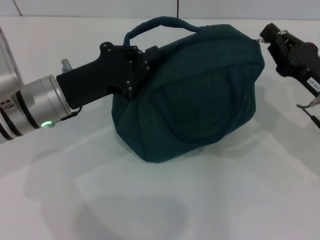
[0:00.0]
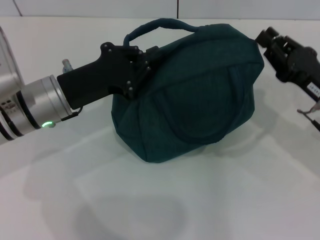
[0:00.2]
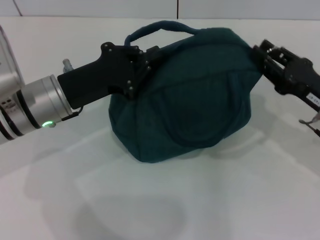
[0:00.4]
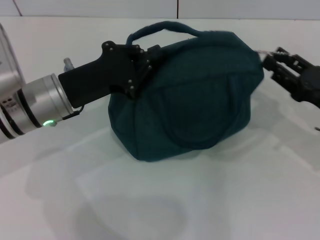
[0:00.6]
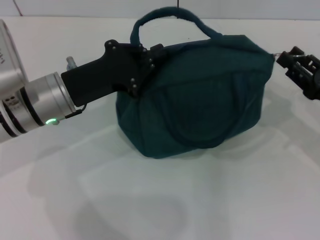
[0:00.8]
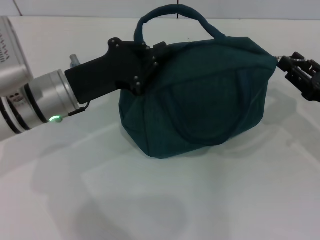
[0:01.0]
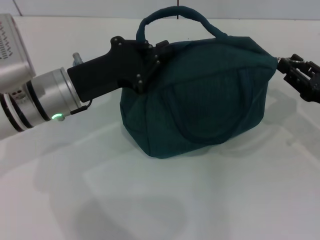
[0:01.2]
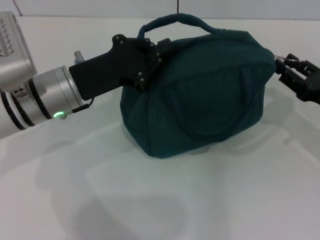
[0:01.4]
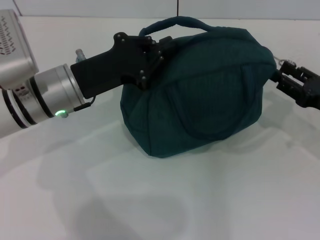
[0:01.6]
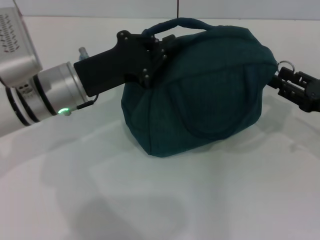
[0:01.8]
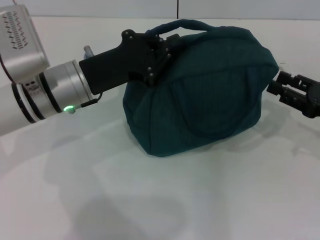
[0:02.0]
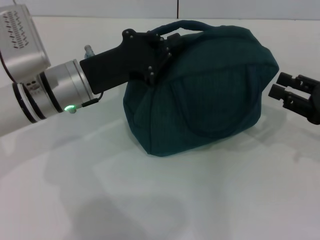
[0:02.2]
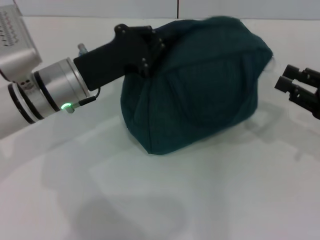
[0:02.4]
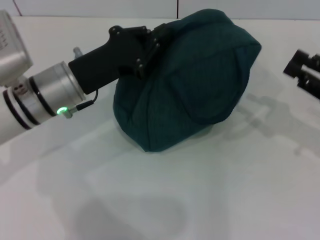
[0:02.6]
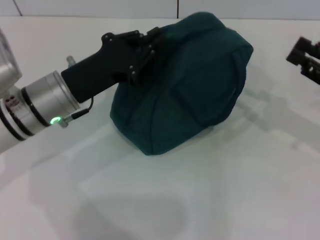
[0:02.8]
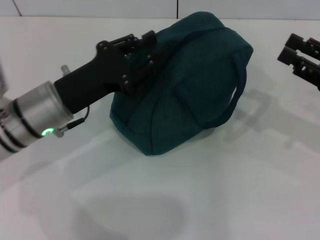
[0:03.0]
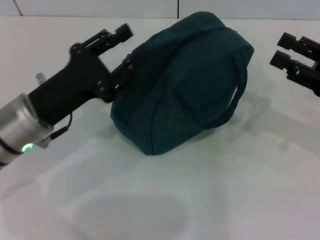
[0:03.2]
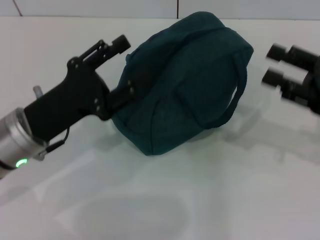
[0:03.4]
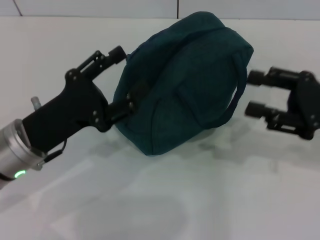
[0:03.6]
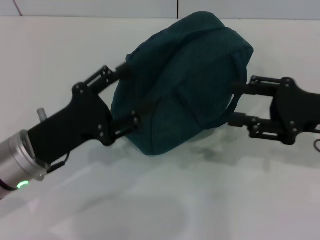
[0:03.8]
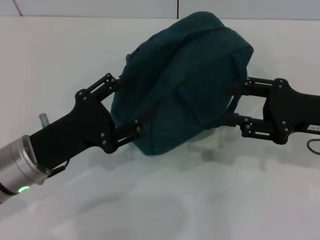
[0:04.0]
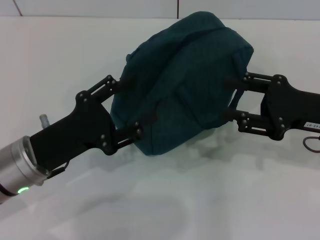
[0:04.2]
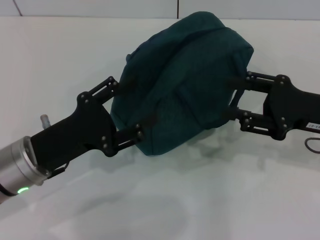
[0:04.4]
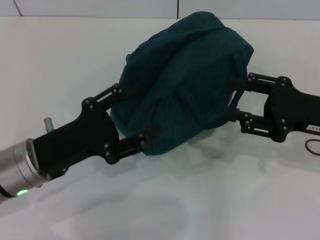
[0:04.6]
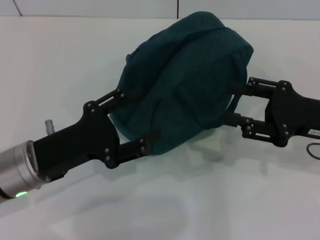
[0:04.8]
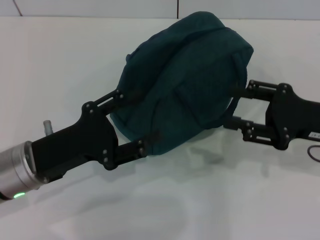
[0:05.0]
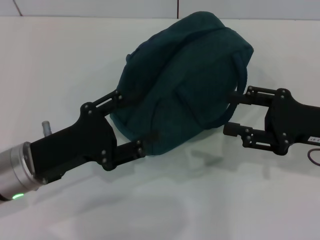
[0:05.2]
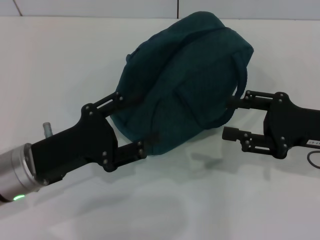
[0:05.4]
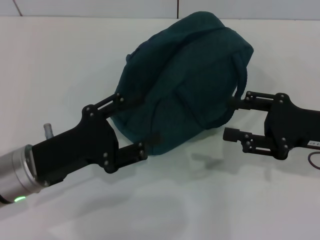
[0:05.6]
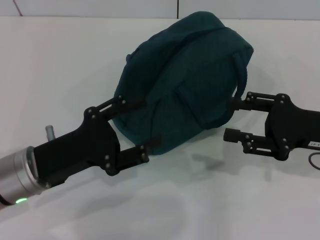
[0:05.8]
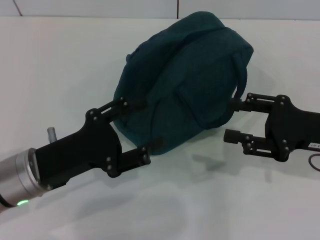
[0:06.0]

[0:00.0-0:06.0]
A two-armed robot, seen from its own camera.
Step, 0:00.0 to 0:02.2: Zip up the lunch bag with your right hand.
Step, 0:02.4 to 0:03.0: Hold the lunch bag with your left hand.
0:00.0 to 0:01.6: The right gripper travels to the right by about 5 cm, and opens its fingers.
0:01.6 to 0:03.0: The right gripper heads upward, covering about 5 cm.
0:03.0 to 0:04.4: The right gripper travels to the left by approximately 5 cm; the left gripper heads backward, covering some 5 cm, and opens its fingers.
0:04.4 to 0:06.0: The grippers stay close to where they were, moving slightly.

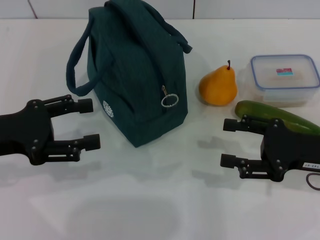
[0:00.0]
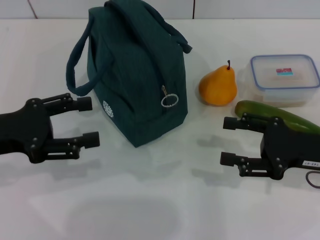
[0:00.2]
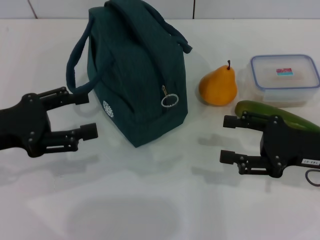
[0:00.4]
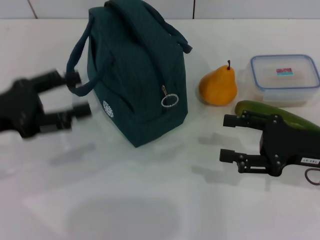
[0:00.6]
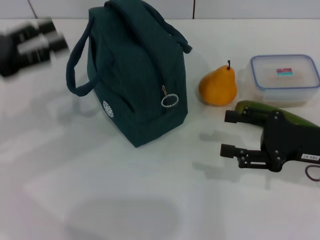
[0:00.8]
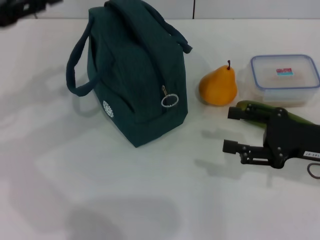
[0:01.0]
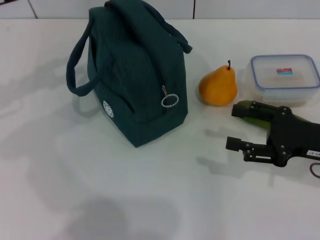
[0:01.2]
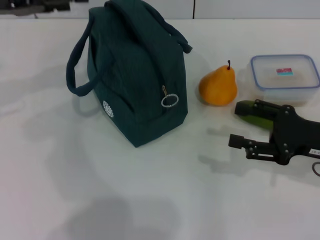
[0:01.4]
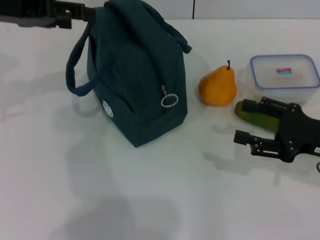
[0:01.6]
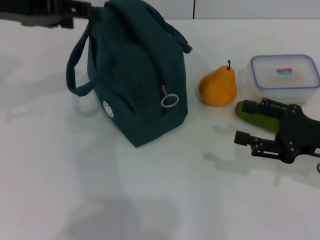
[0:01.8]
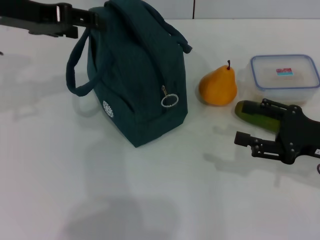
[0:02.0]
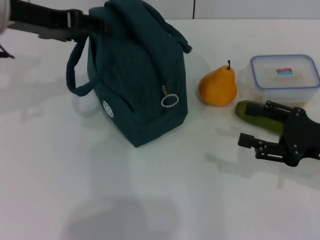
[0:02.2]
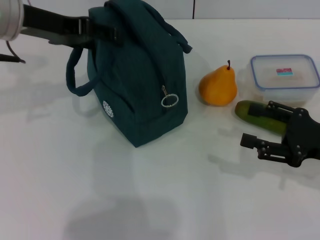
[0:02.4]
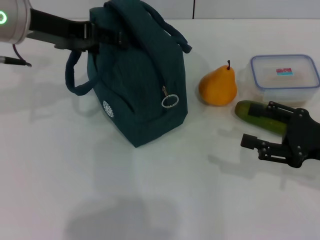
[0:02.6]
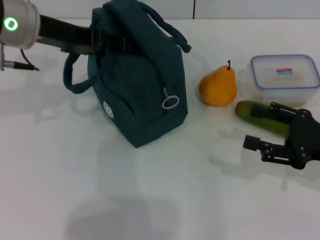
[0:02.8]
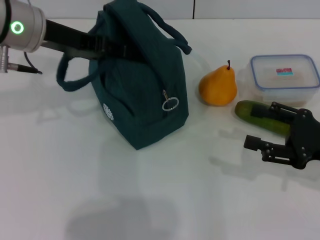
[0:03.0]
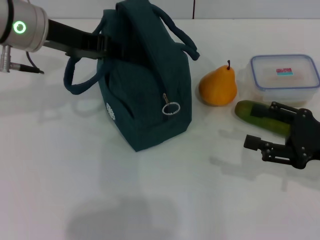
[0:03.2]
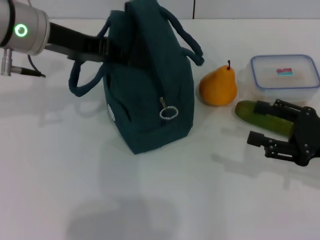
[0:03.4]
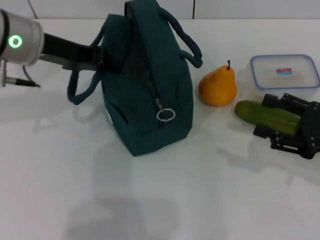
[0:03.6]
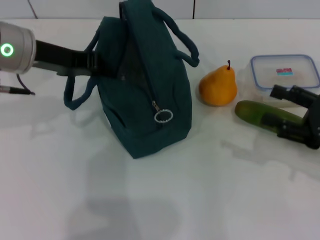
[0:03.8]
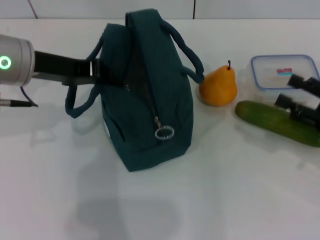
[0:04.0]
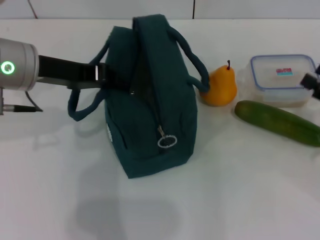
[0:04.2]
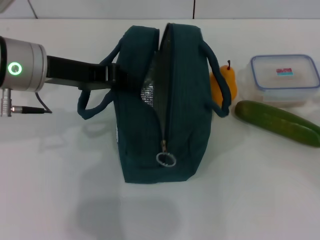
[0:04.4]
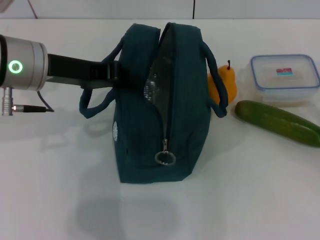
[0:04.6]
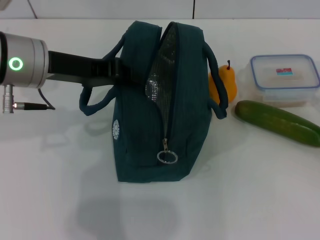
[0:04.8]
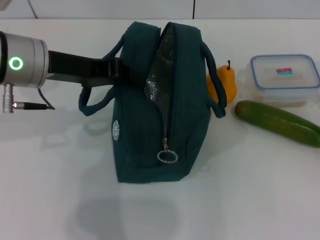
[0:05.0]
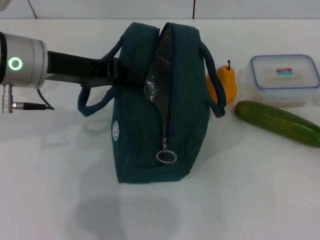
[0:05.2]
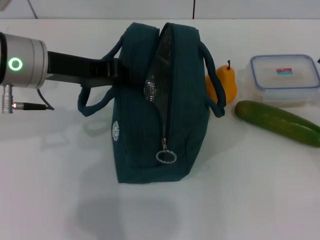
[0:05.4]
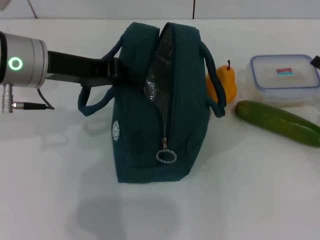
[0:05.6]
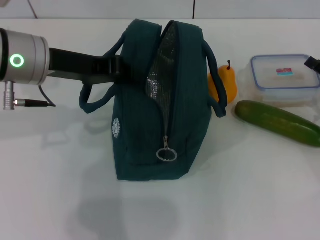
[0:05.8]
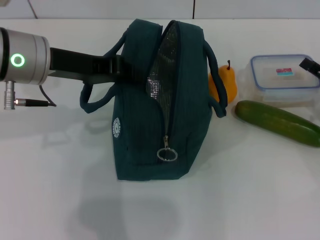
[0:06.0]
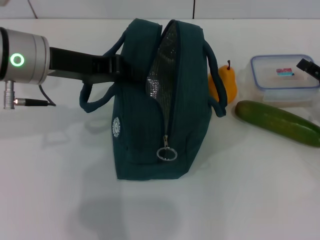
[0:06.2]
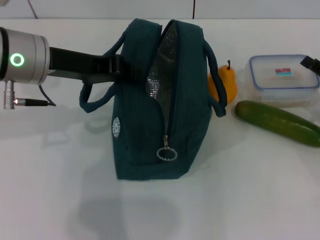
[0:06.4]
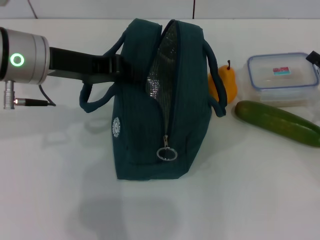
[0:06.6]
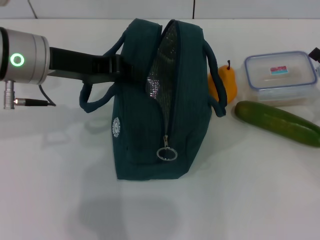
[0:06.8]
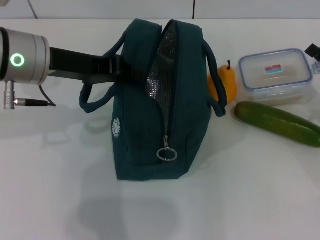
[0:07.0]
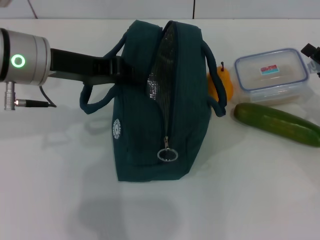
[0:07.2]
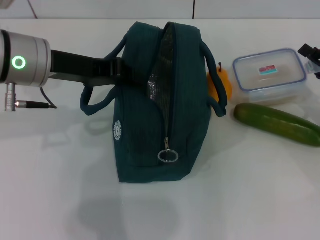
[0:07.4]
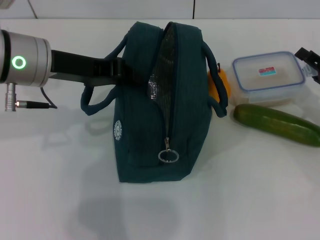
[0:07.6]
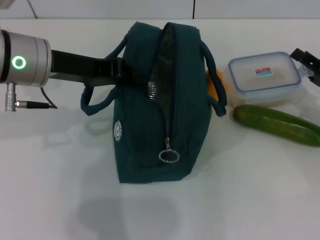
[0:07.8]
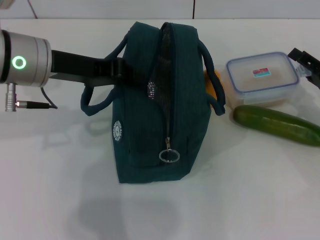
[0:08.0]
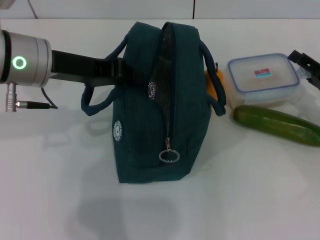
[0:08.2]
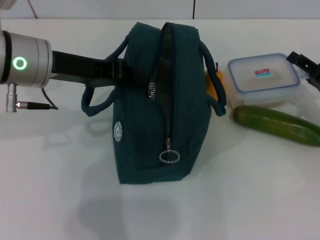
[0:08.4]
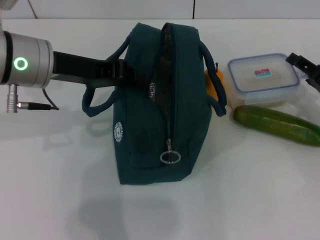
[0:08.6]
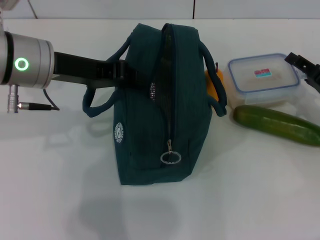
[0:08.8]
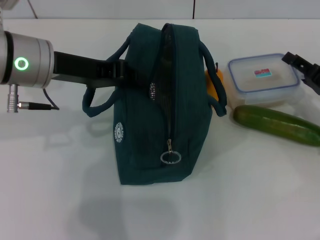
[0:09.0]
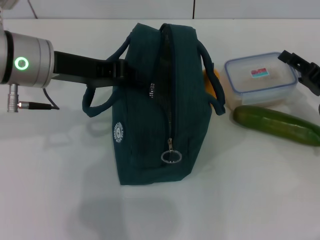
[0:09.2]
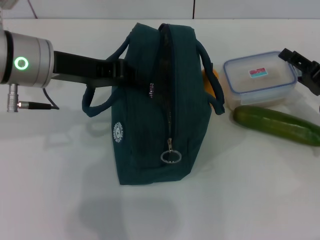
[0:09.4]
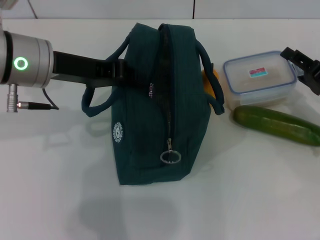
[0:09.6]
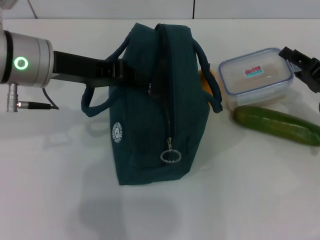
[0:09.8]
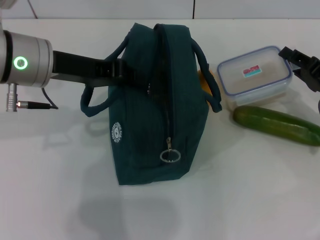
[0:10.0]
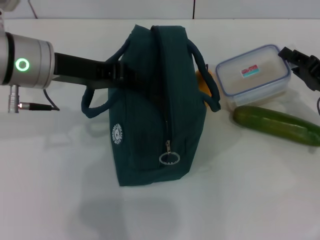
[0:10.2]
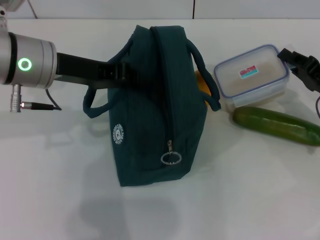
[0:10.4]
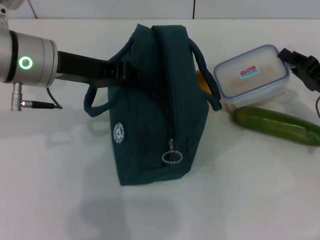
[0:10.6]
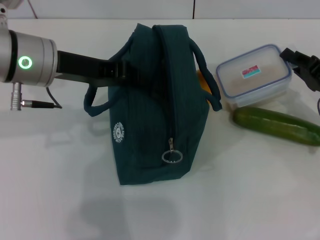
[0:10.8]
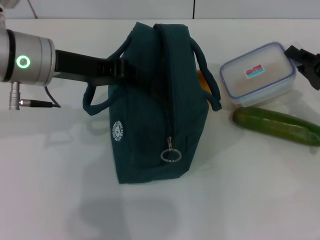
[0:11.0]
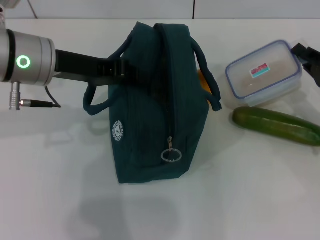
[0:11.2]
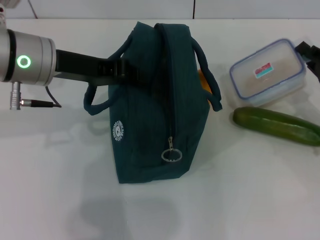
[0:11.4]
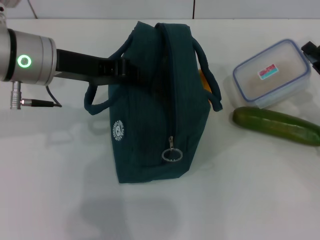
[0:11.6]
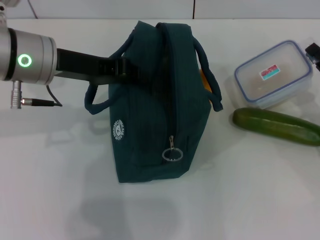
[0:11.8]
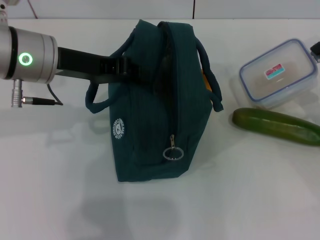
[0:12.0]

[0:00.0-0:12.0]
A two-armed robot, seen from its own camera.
Step, 0:00.0 to 0:03.6: Hold the lunch bag with your left hand.
Step, 0:03.8 to 0:11.0: Pick up the lunch box with your right hand.
0:00.0 to 0:01.6: The left gripper moves forward and upward, some 15 cm.
0:01.6 to 0:03.0: The left gripper heads to the right, covering some 5 cm.
0:03.0 to 0:04.4: The right gripper goes about 10 cm to the right. The left gripper heads backward, covering about 5 cm, and closes up.
0:04.4 to 0:06.0: The right gripper heads forward, covering roughly 5 cm.
0:06.0 to 0:09.0: The grippers make only small movements.
0:09.0 to 0:10.4: The right gripper closes its fingers.
0:10.4 to 0:12.0: The grippers move only a little.

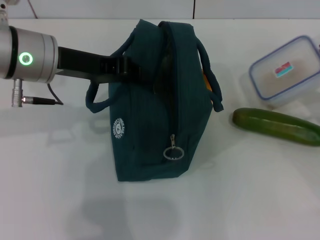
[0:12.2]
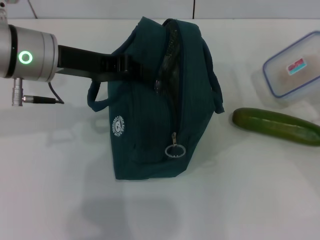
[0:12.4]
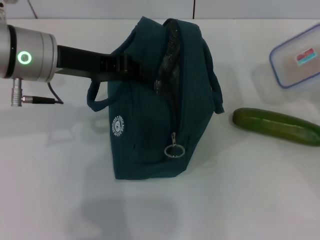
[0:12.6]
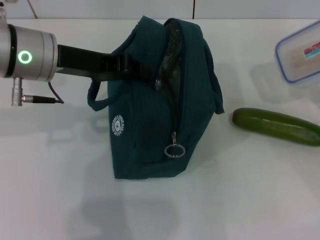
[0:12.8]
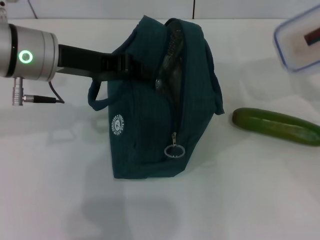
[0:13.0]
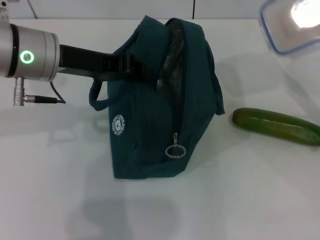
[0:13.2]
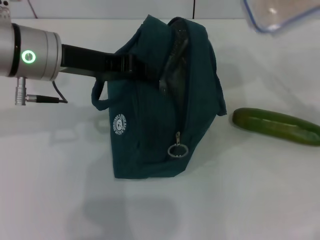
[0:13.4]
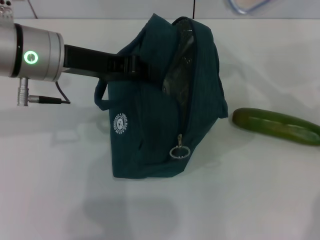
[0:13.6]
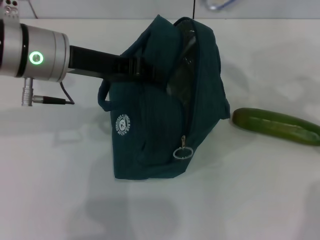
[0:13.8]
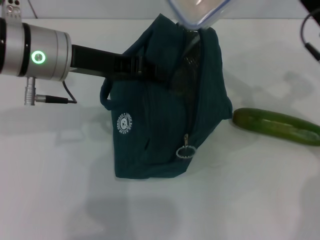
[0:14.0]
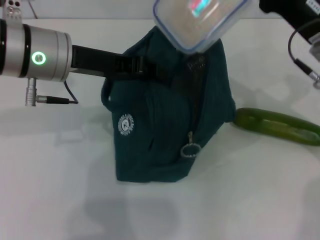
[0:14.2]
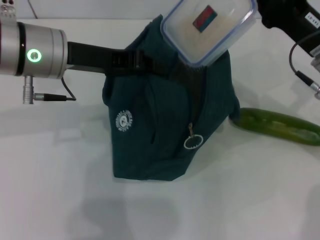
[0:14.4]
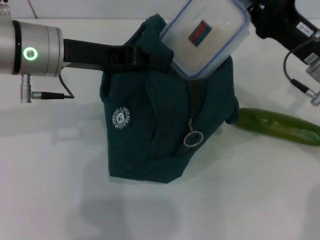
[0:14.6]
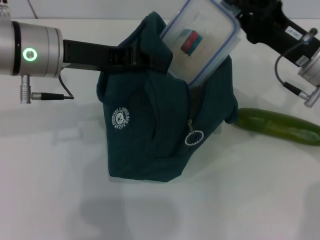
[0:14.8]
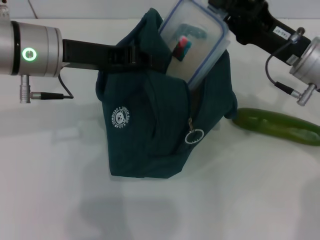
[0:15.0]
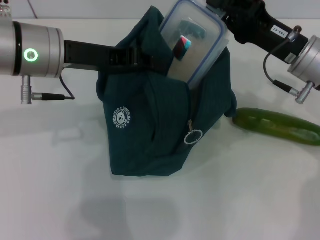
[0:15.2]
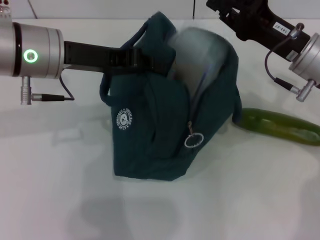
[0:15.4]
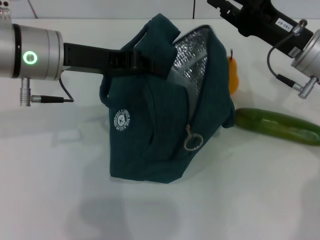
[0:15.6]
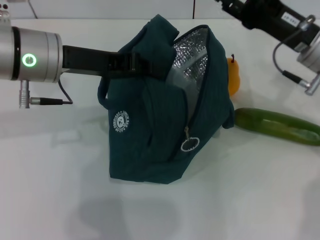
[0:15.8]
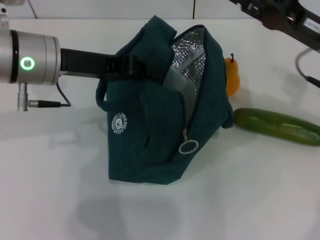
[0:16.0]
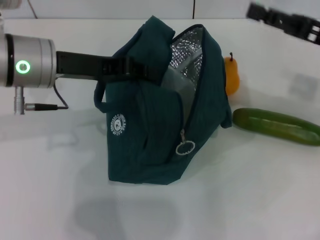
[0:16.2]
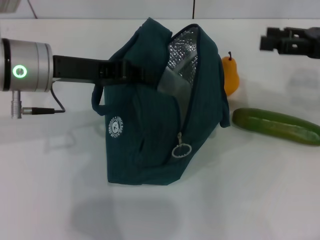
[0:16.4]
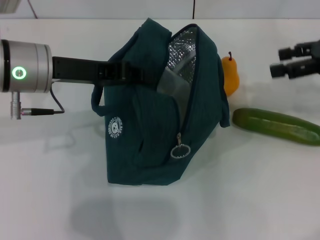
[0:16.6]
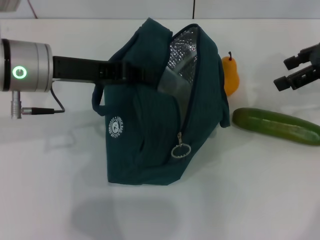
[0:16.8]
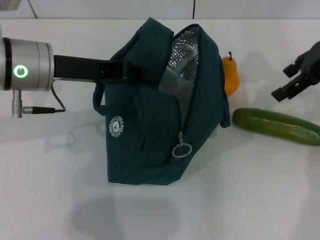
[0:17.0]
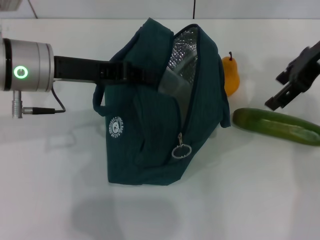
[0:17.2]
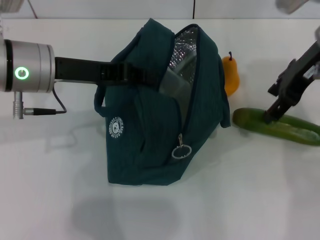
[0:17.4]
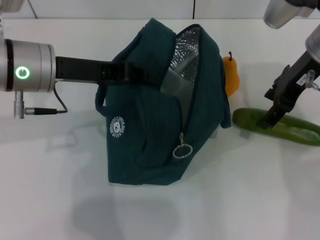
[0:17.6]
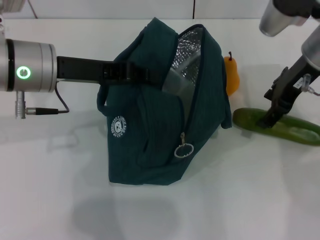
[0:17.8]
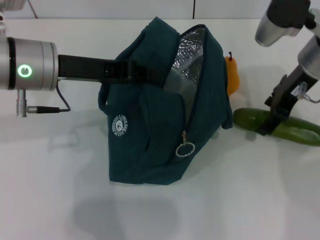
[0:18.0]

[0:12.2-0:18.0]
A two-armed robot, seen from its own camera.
Step, 0:12.2 to 0:15.4: Place the lunch box into the lunch bag with your right hand.
0:12.2 to 0:13.6: The right gripper moves upward and to the left, about 10 cm.
0:13.6 to 0:15.0: The right gripper is displaced to the left by about 5 cm.
0:15.0 to 0:16.6: The right gripper moves to the right and upward, roughly 15 cm, and opens.
0:16.6 to 0:18.0: The right gripper moves to the left, about 10 cm.
